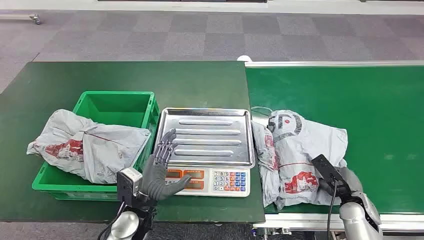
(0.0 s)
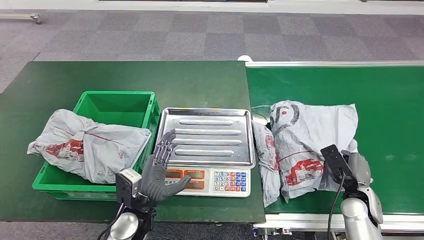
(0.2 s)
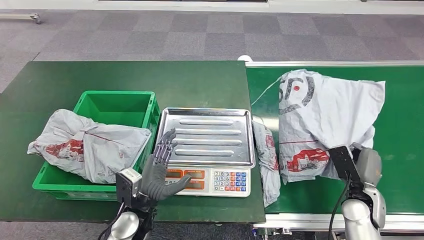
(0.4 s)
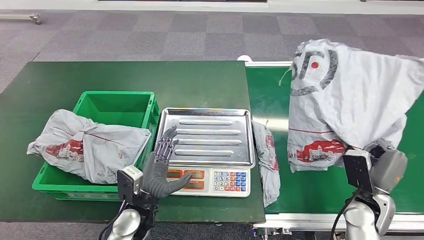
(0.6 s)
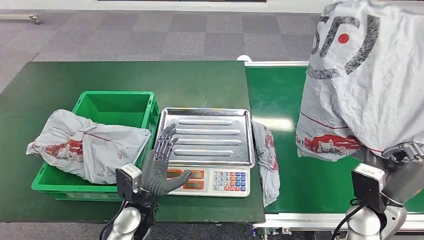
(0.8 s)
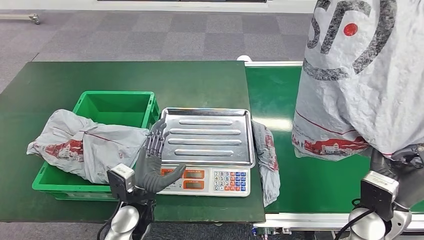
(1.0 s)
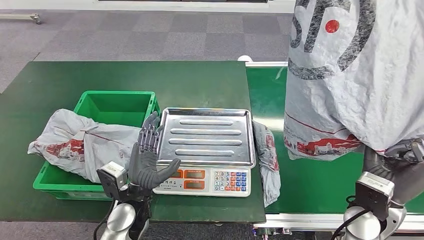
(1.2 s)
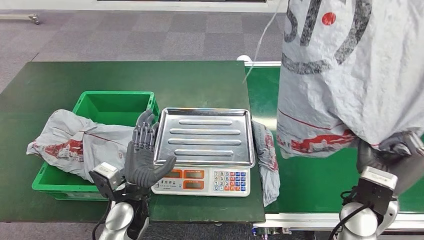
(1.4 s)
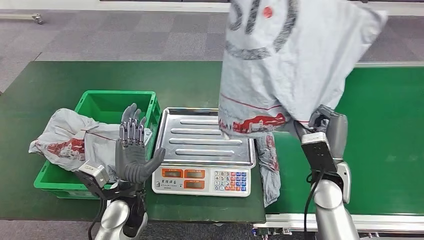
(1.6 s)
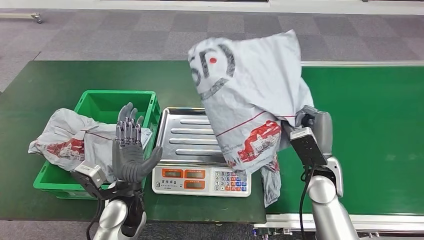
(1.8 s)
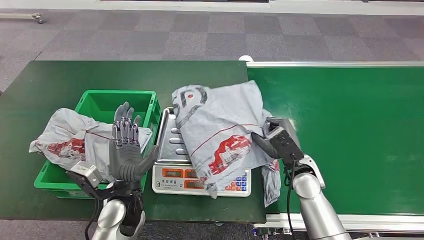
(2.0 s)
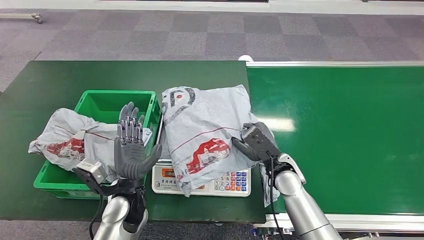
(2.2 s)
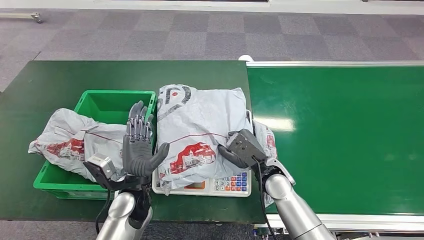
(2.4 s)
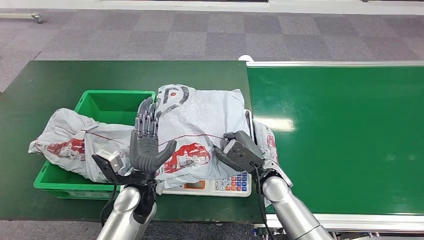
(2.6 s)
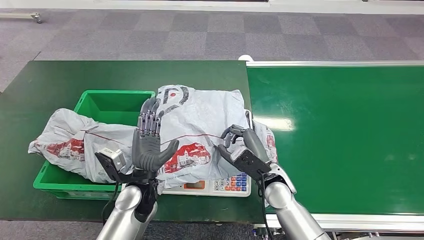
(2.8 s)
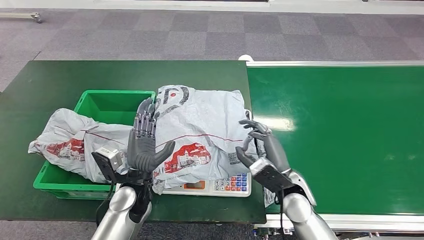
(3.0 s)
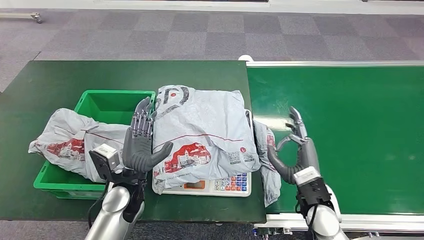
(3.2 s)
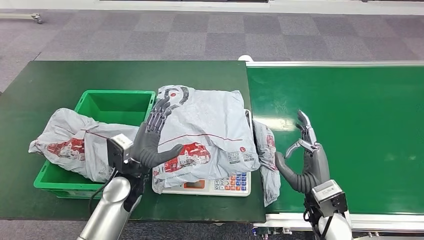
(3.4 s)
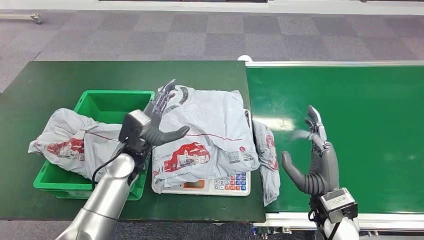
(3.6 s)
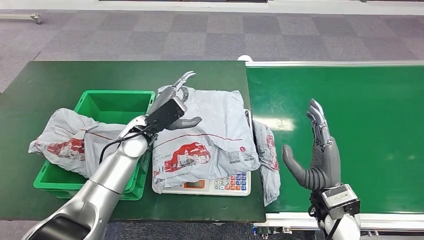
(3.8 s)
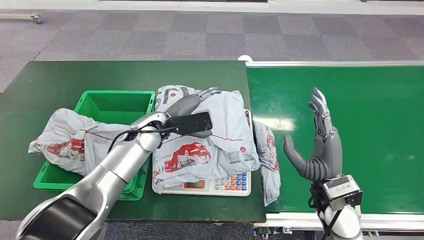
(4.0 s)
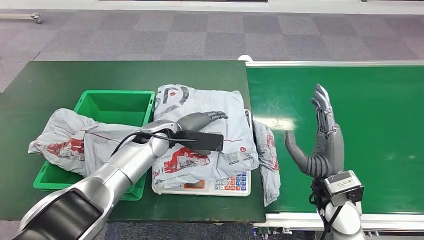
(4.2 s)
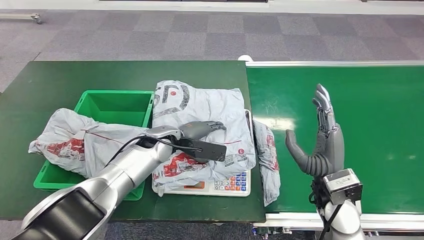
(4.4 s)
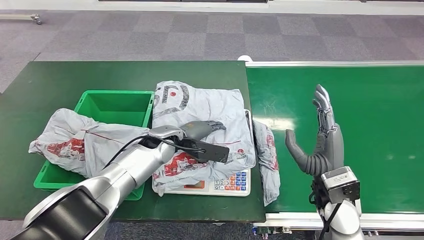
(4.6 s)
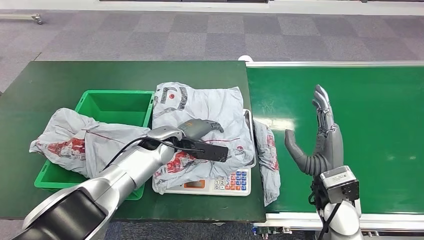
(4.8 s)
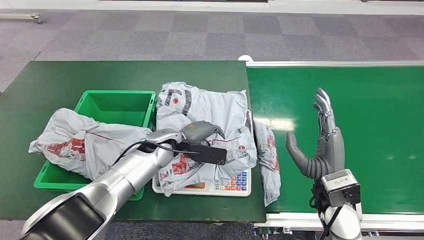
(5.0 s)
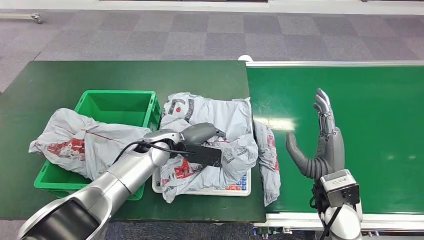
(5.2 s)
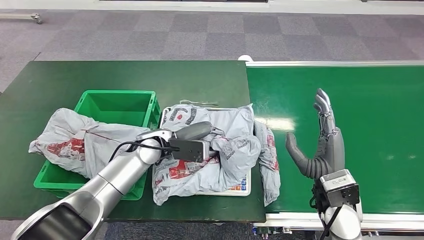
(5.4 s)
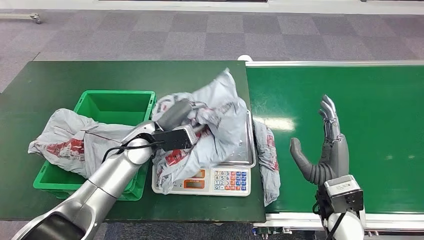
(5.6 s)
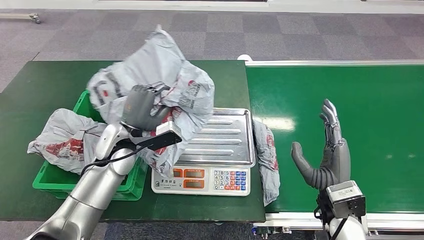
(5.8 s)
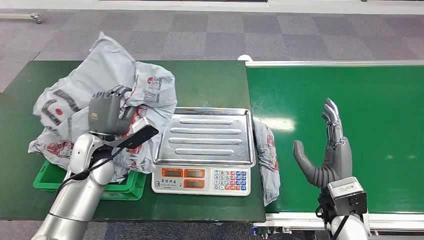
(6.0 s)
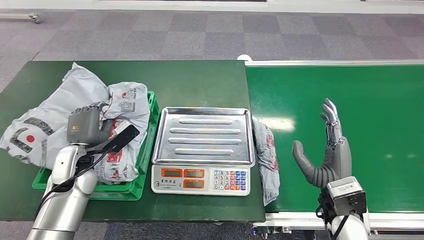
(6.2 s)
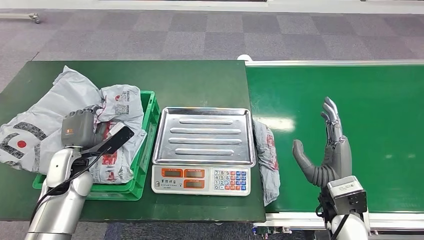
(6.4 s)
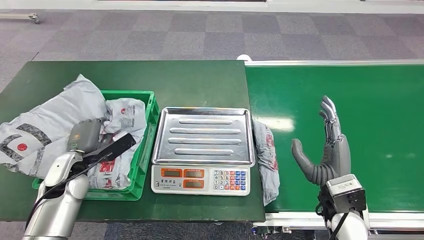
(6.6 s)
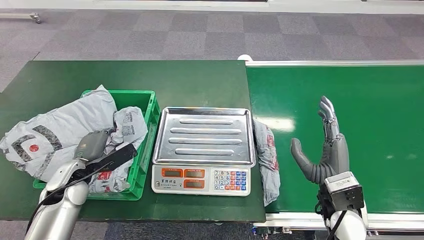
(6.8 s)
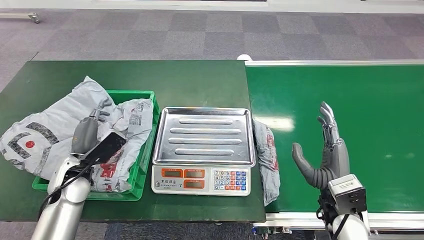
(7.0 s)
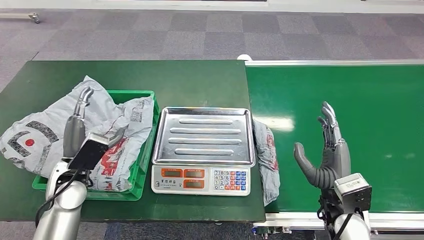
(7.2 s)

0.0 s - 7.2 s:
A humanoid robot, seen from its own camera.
Step, 0.0 s - 0.6 s: Pick up the package from the conveyor belt.
Step, 1.0 s - 3.0 s: Place the package onto the inbound machine.
Step, 3.2 s - 5.6 s: Pick up the package from the inbound machine.
Step, 5.8 s - 7.2 s: Place the package into the parcel locker.

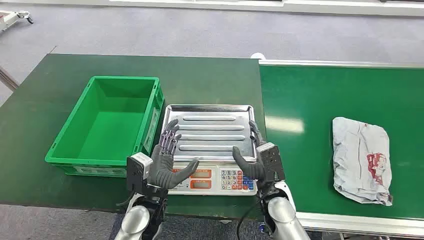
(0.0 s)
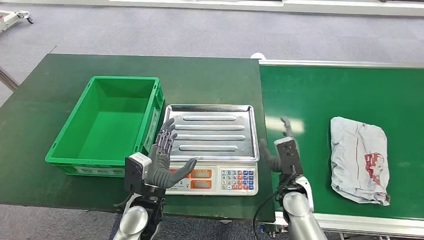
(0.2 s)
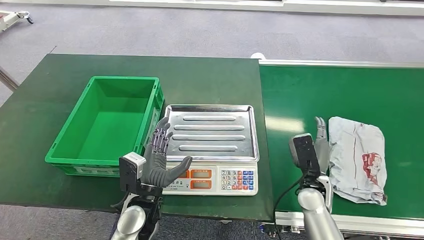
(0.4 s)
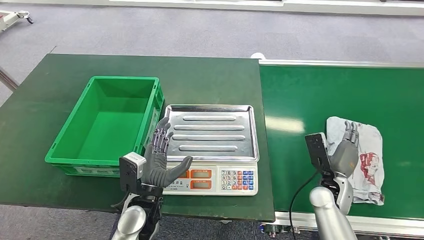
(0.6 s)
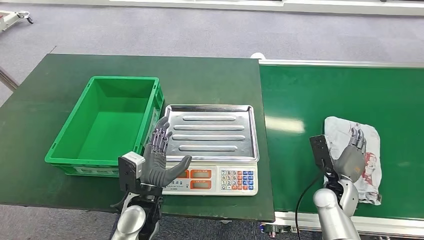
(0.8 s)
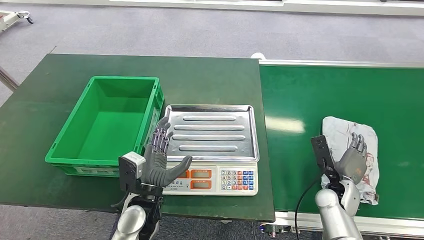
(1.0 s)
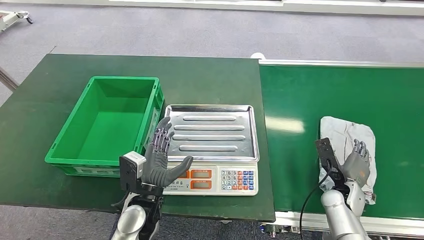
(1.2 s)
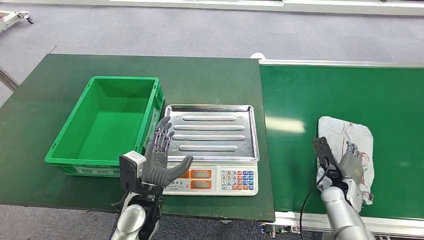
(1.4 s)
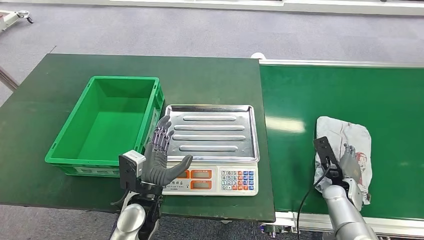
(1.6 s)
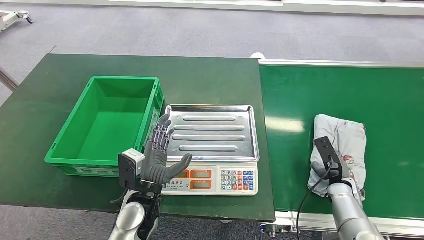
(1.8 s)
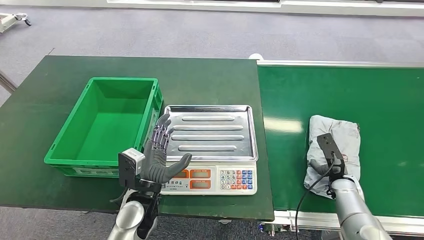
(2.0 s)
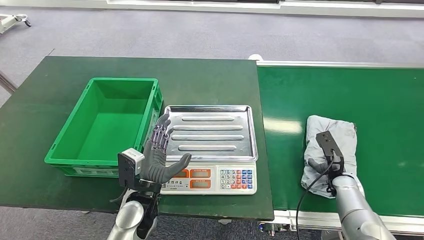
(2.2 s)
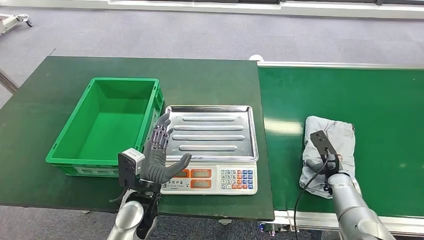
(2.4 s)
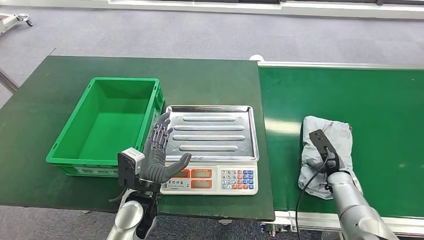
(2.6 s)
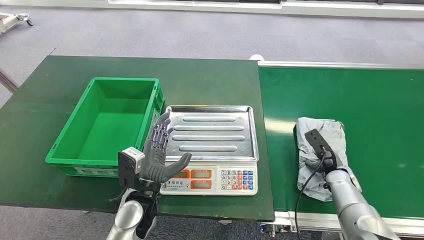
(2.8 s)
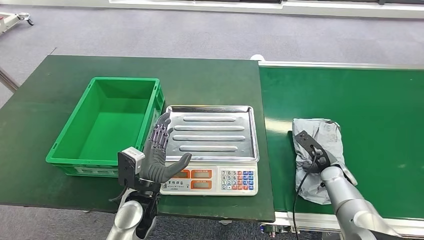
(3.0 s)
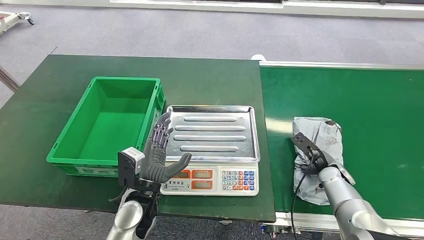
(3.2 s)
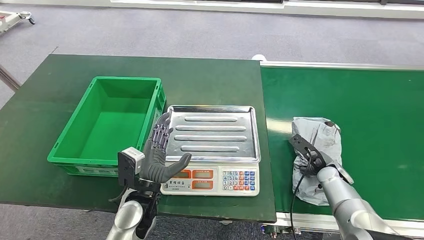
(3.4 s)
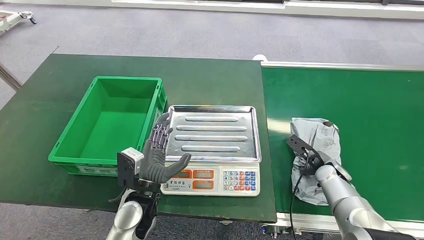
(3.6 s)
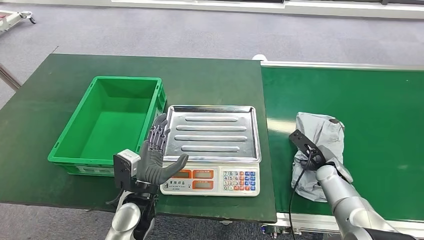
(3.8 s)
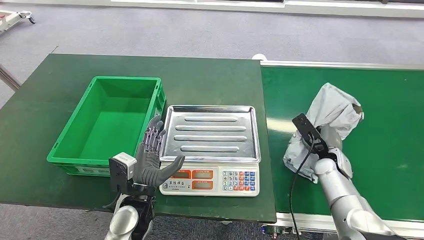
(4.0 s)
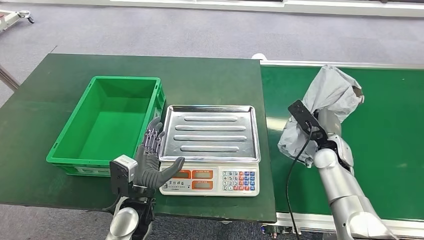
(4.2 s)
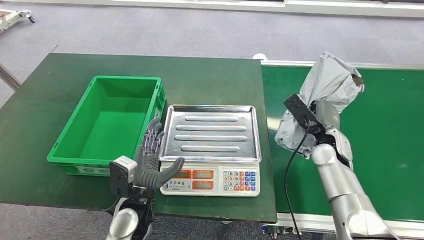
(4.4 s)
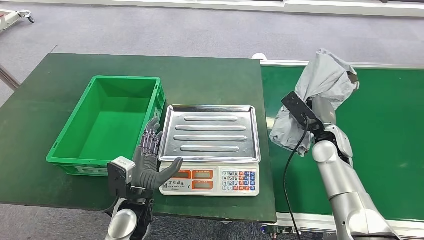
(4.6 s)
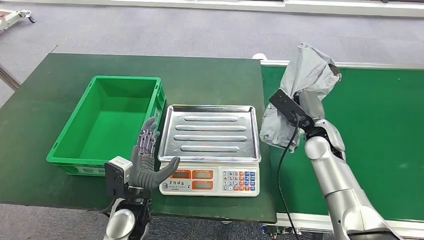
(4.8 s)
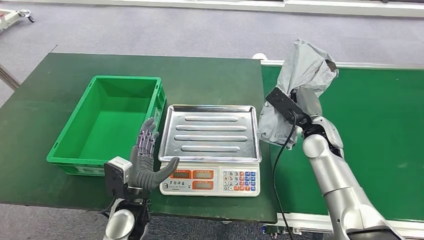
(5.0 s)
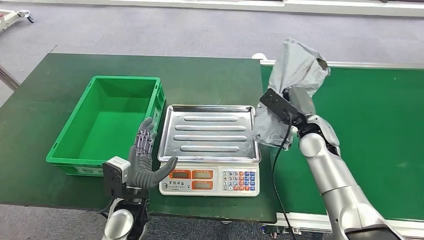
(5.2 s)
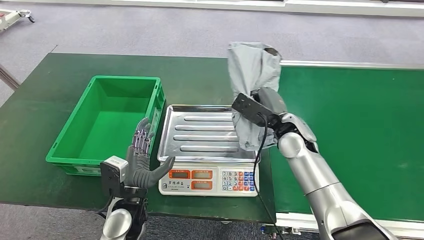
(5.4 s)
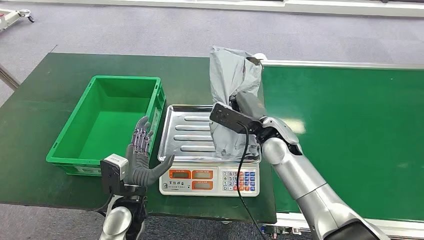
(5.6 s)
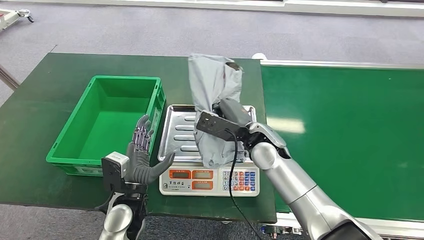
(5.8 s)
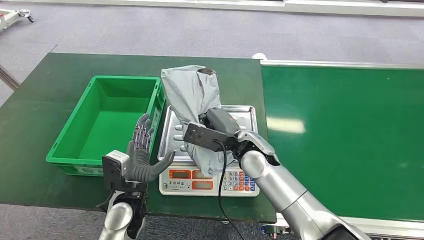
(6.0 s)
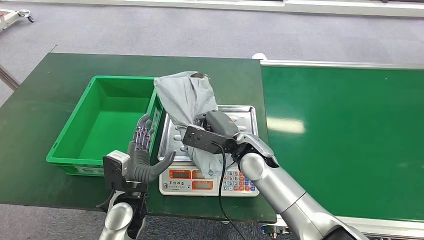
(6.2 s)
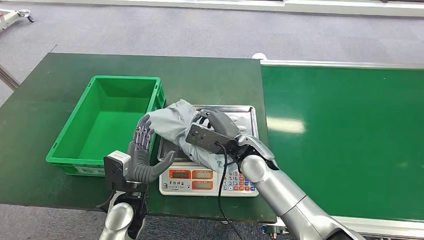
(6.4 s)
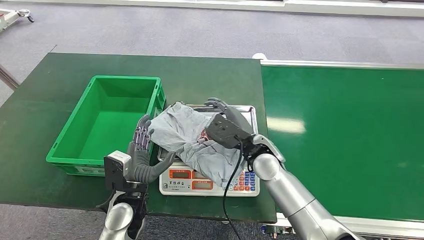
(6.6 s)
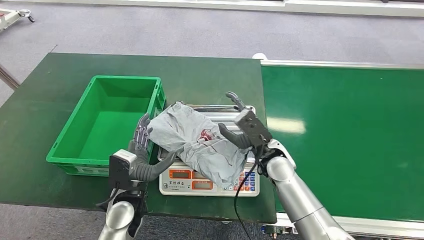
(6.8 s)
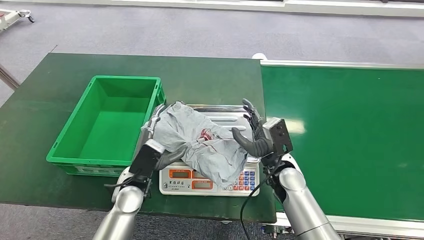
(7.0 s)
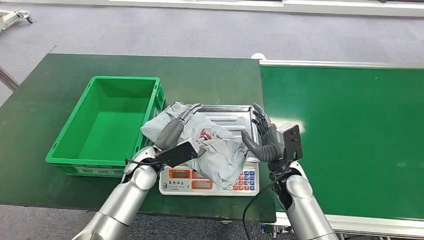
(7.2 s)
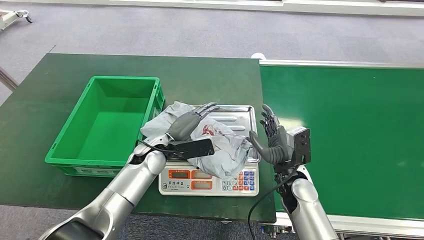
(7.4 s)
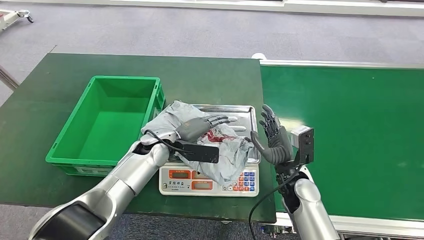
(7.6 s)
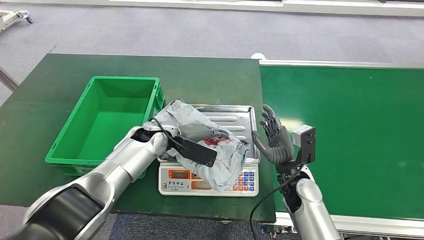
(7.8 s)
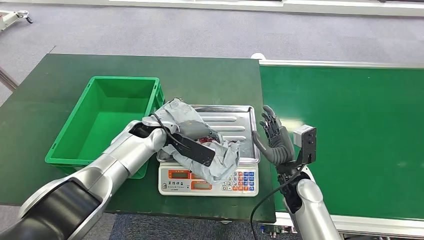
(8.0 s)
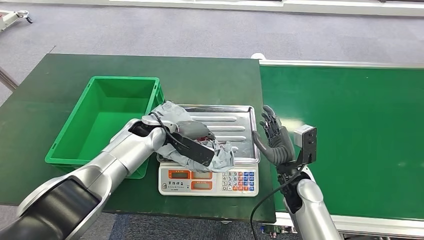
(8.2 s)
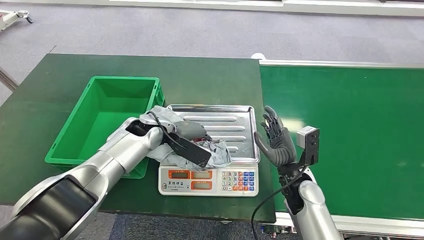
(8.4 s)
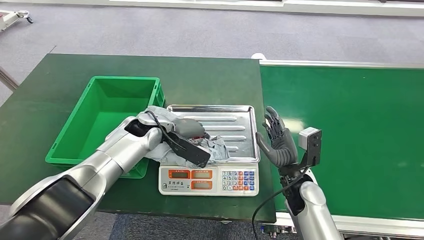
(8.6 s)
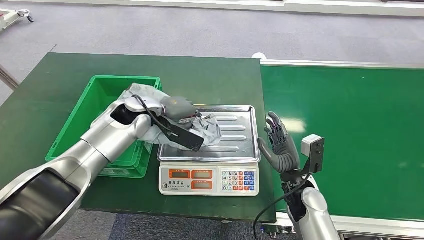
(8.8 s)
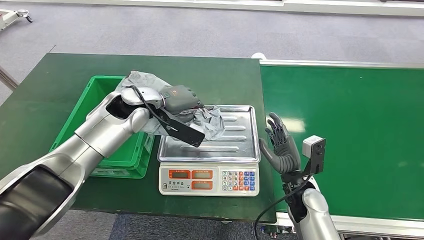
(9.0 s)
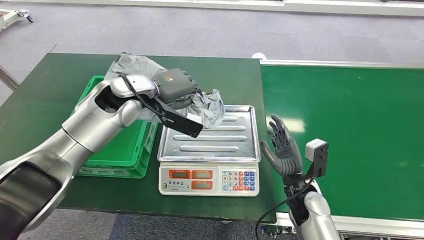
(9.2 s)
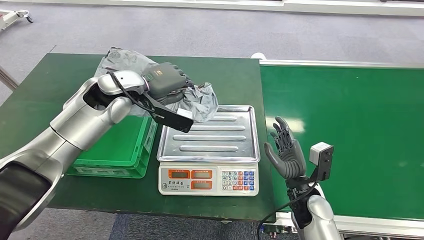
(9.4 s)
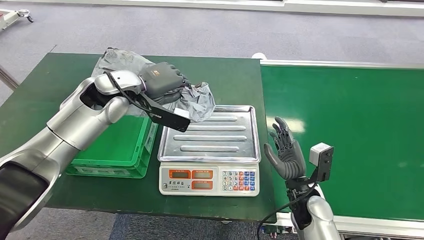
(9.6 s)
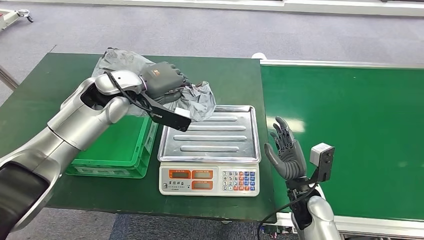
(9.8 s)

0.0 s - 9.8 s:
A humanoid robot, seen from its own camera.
Step, 0.0 s - 4.0 s: Pick up the package from the conveyor belt.
Step, 4.2 s - 6.4 s: Place the package onto the inbound machine.
Step, 6.8 s - 9.6 s: Pick up the package from the inbound machine.
5.6 s - 7.0 s: The left hand goes roughly 5 cm forward, while the right hand shifts about 10 cm downward and backward, and travels to the left and back again, approximately 5 cm each way.
